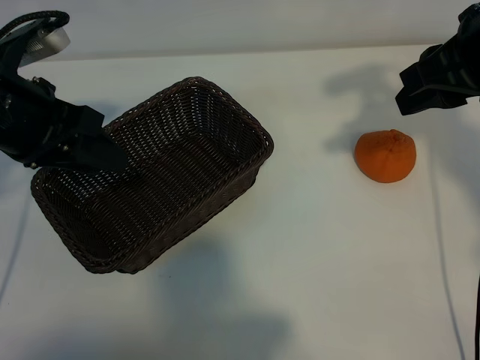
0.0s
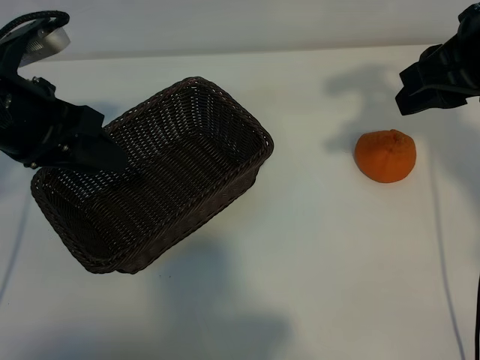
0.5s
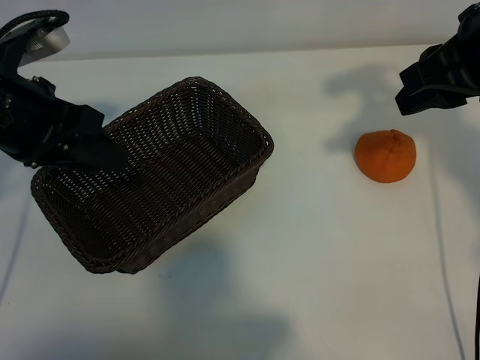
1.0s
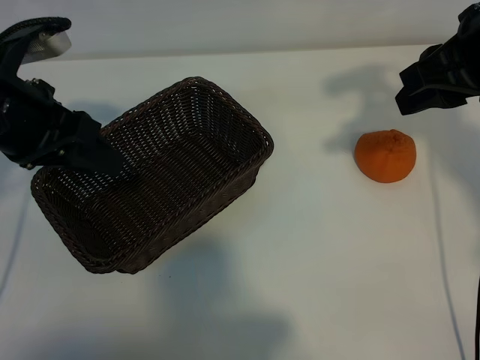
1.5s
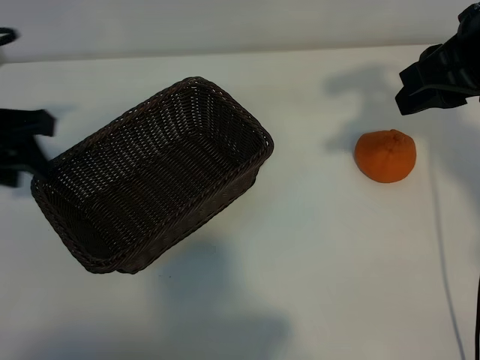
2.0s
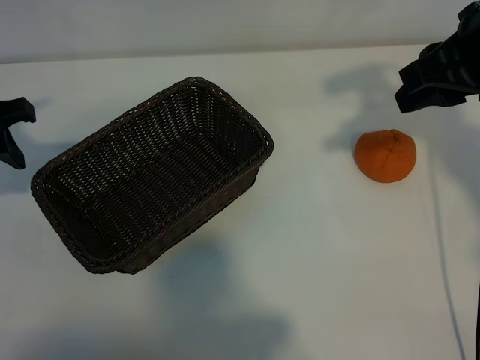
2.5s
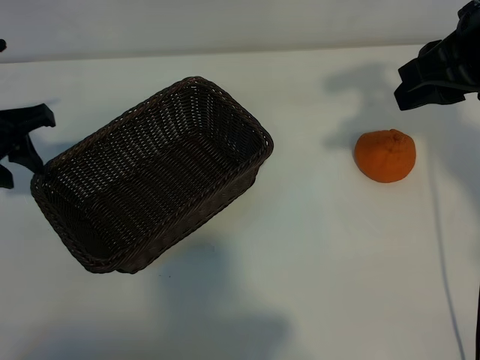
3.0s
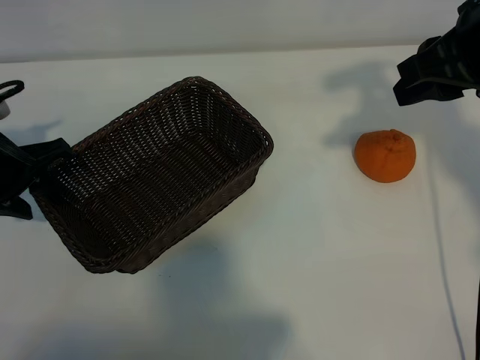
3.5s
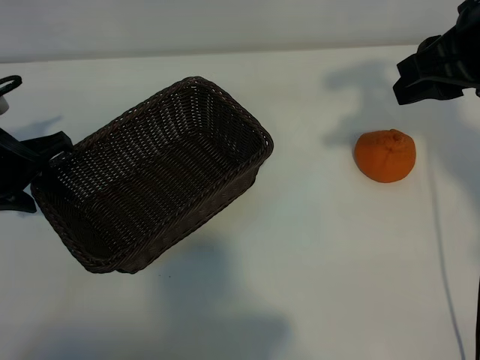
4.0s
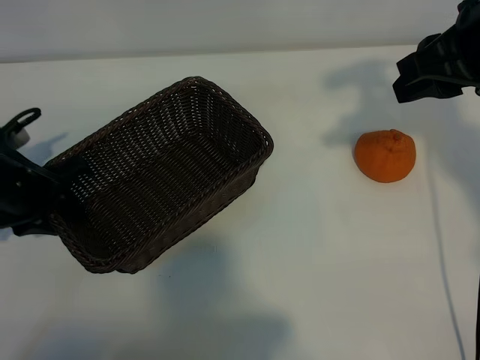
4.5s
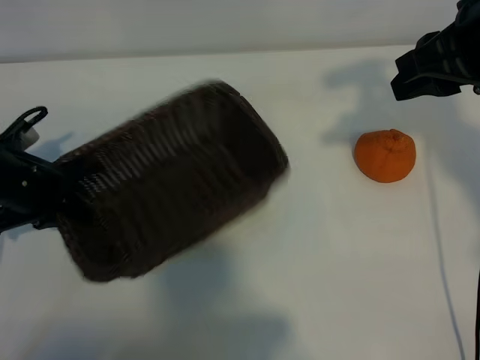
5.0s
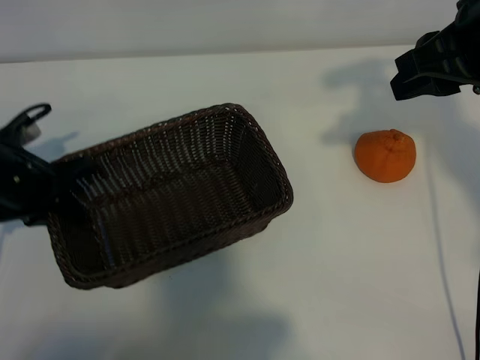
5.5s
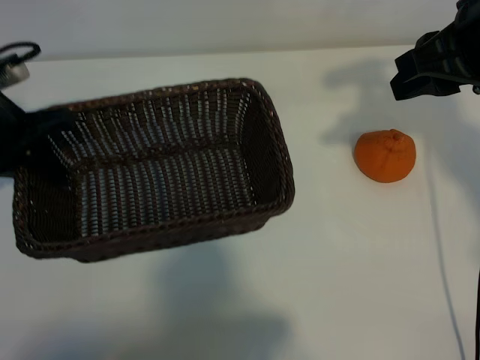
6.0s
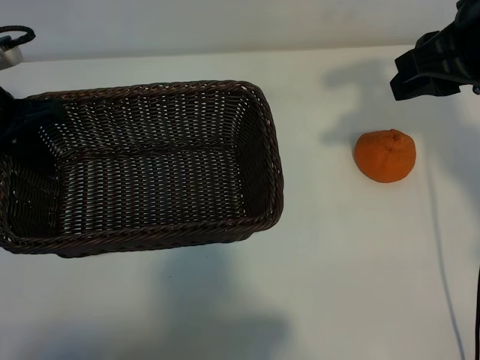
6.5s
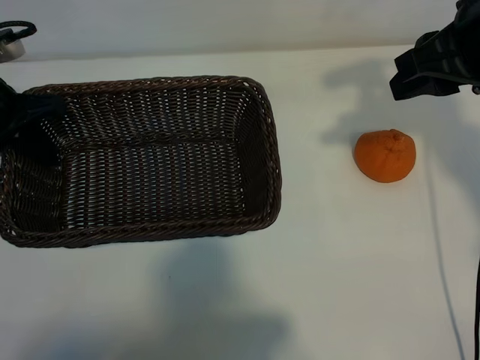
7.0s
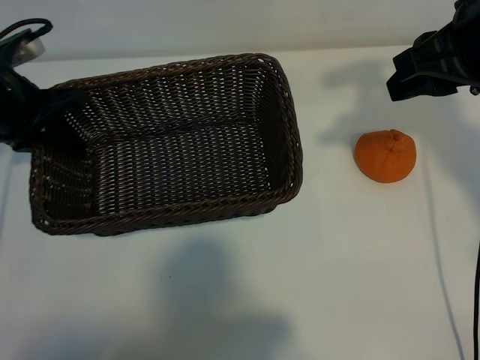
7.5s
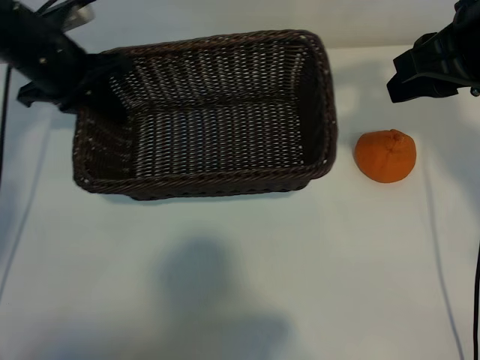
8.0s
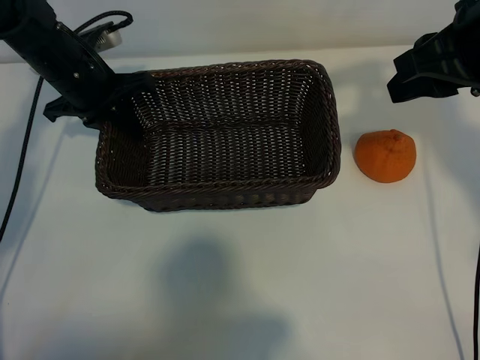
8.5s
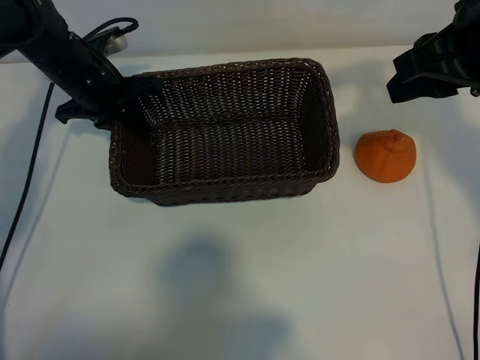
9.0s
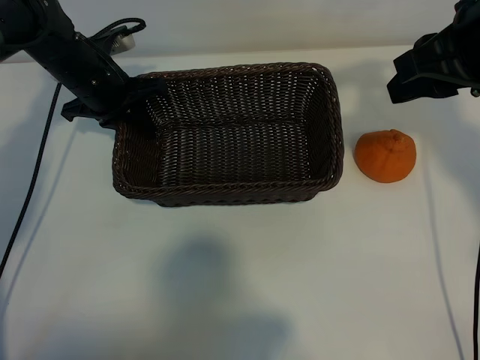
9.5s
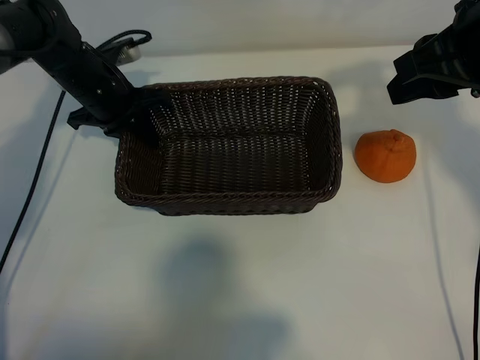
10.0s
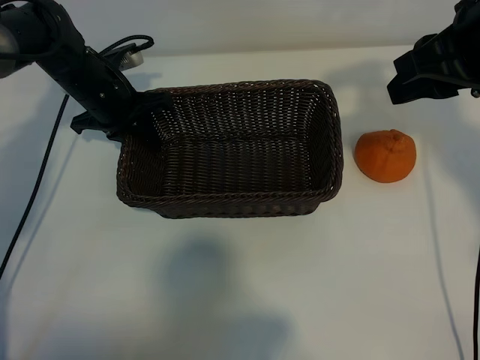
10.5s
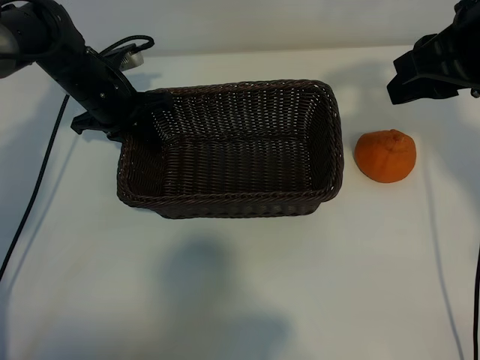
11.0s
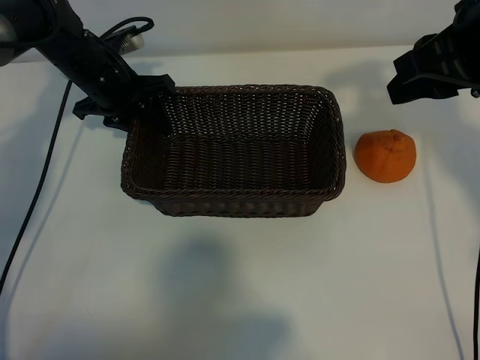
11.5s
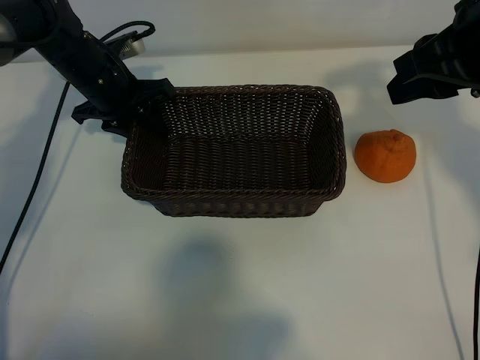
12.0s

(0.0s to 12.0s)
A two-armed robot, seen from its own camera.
Task of the whole recording: pick up the orange and put it into the basket.
Step, 1.0s - 5.0s: Grasp the basket with left gripper.
Step, 5.5s - 11.0s: Place the basket in the center of view with left gripper.

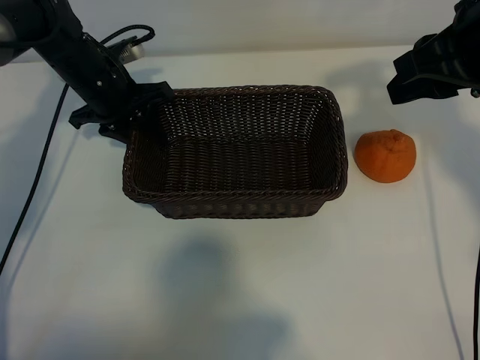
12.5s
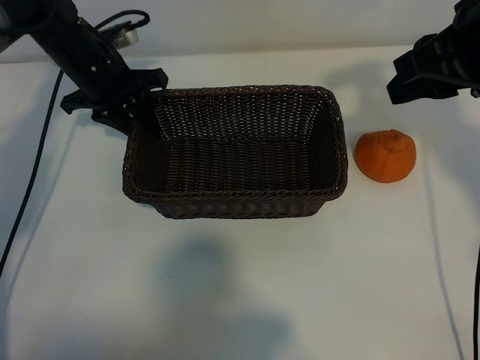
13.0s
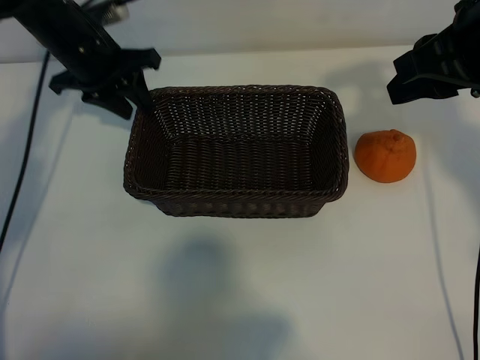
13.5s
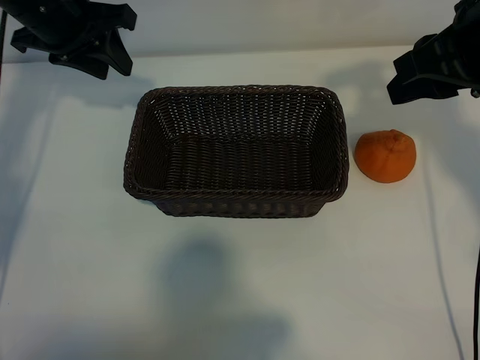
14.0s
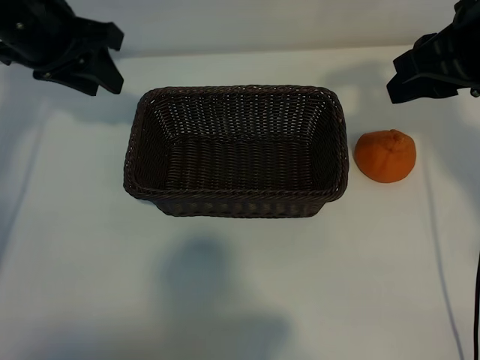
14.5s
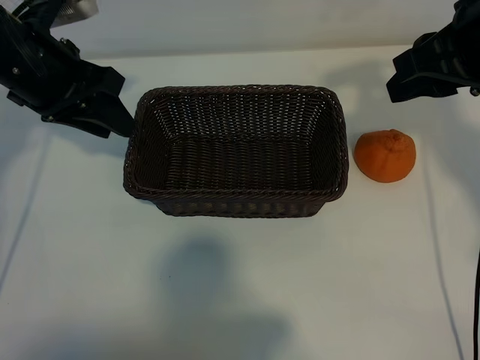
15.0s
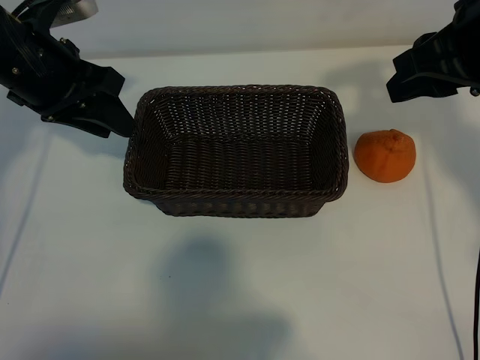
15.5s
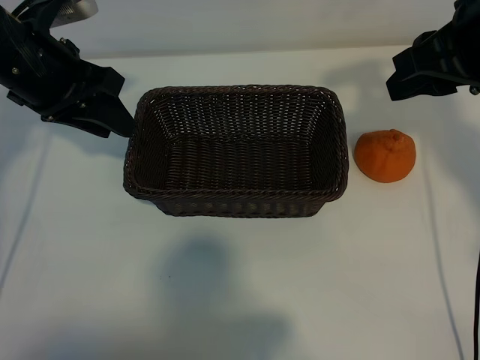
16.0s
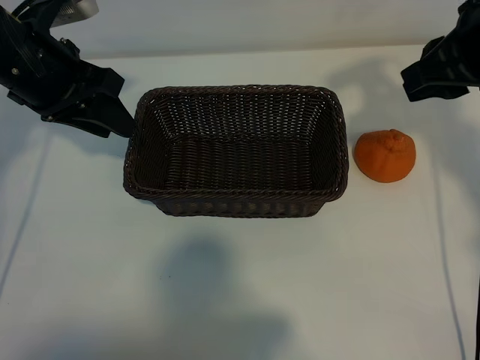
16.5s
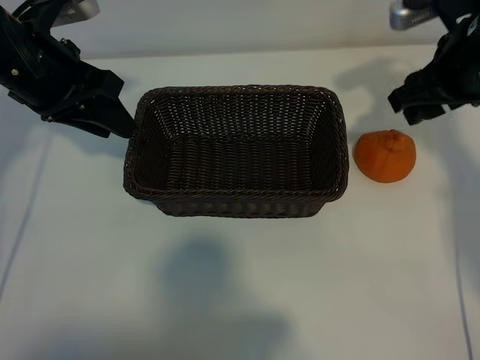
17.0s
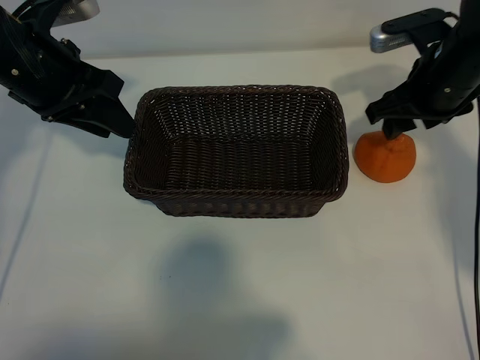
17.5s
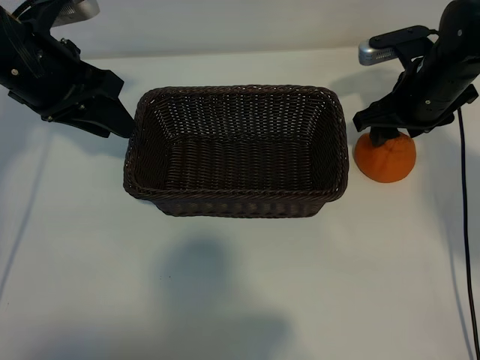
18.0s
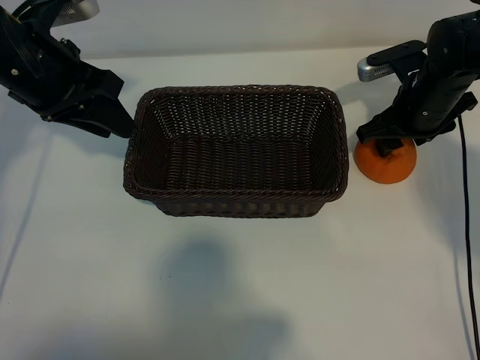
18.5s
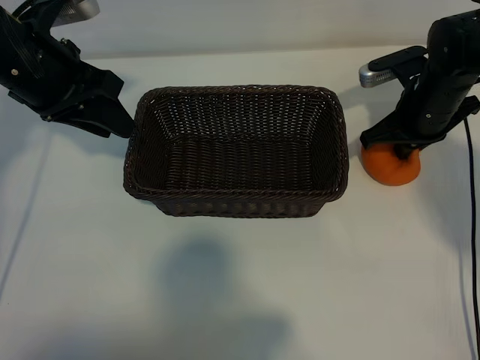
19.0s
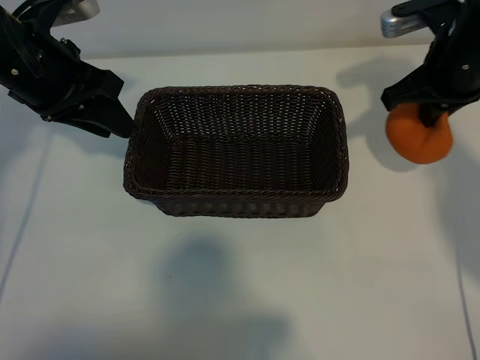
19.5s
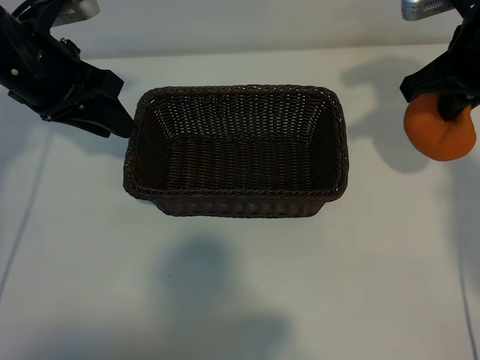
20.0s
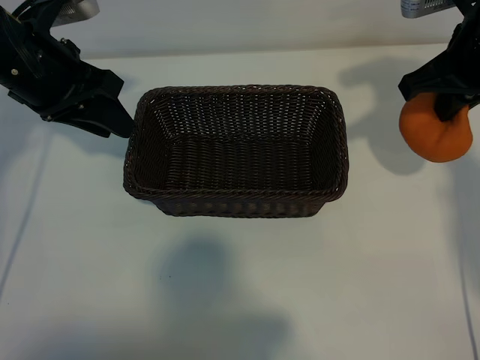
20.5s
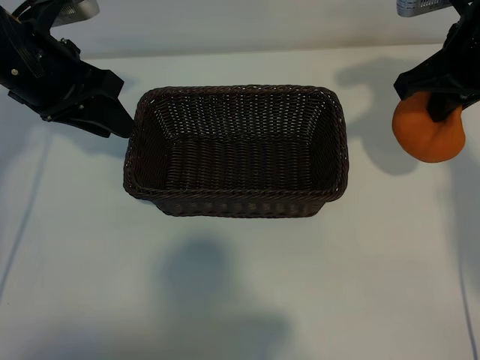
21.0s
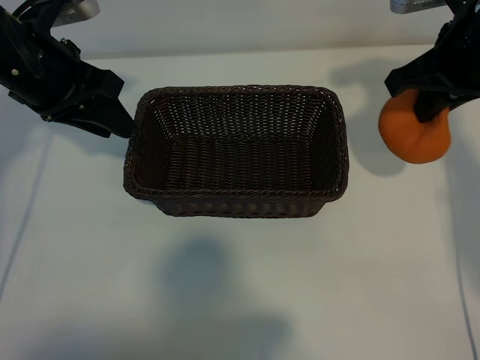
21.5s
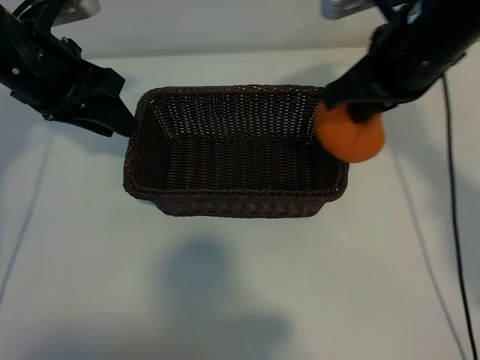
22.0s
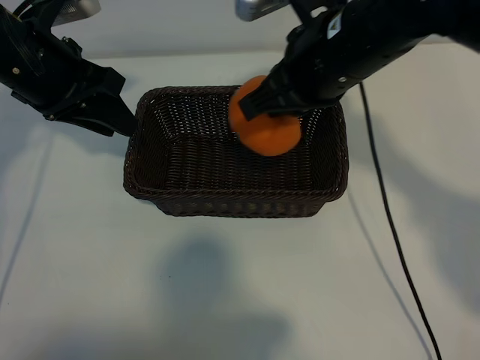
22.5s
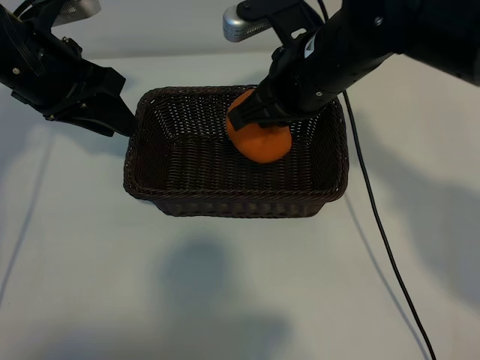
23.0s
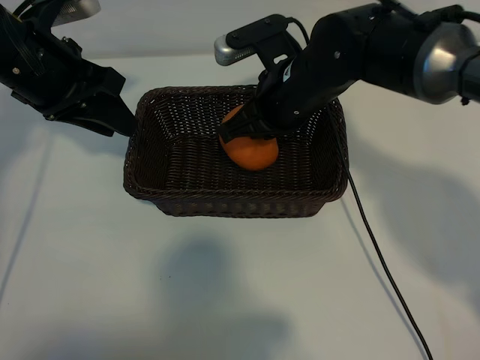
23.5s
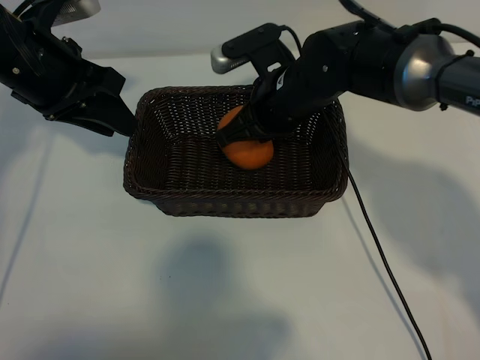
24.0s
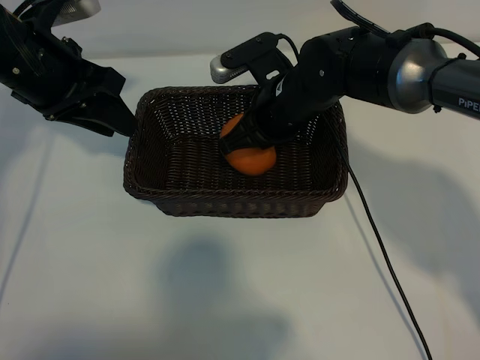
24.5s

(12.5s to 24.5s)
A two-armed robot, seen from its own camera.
Task of the whole recording: pick up the orange and put it into the basket.
Step, 12.5s - 18.5s: Grasp the orange with right gripper.

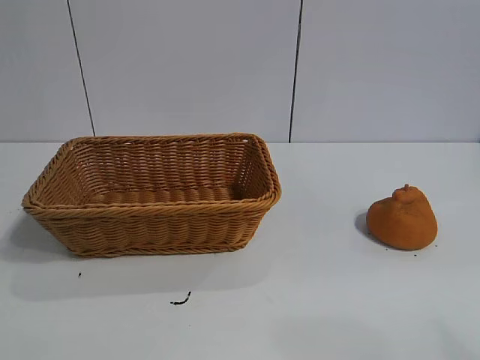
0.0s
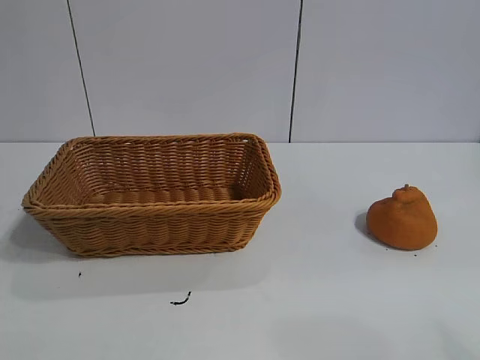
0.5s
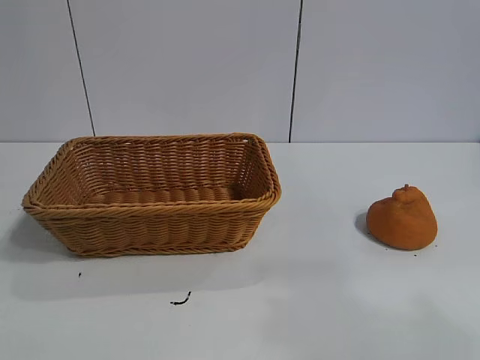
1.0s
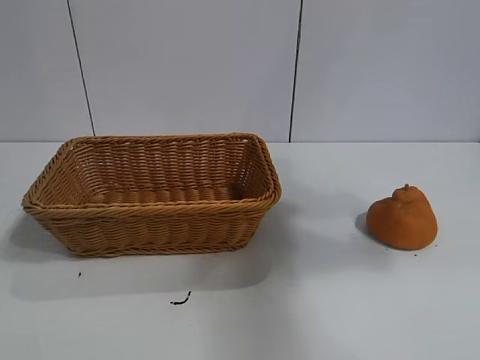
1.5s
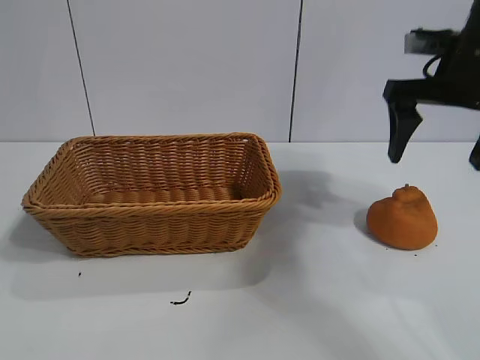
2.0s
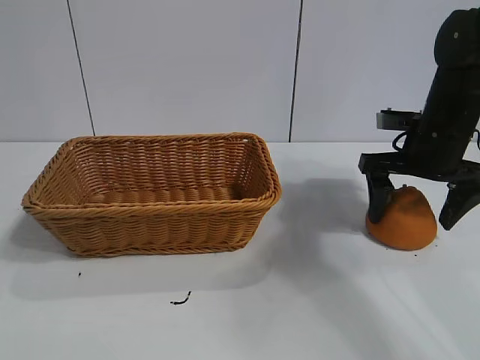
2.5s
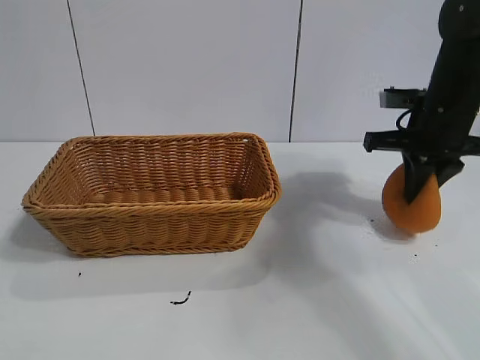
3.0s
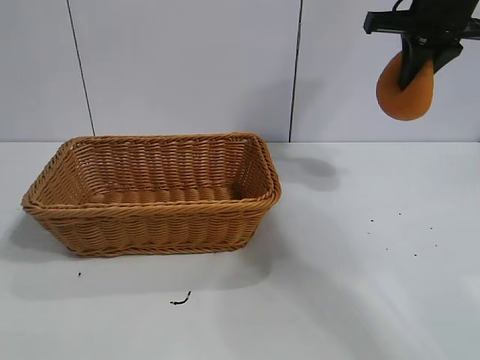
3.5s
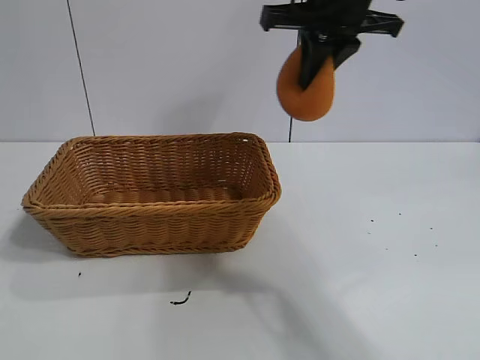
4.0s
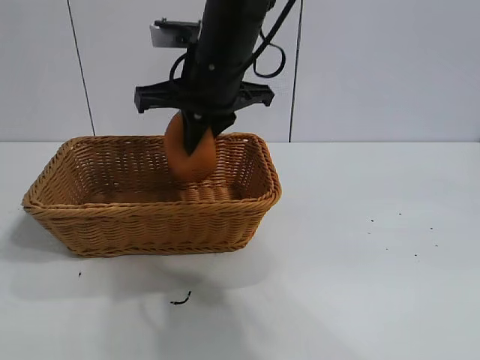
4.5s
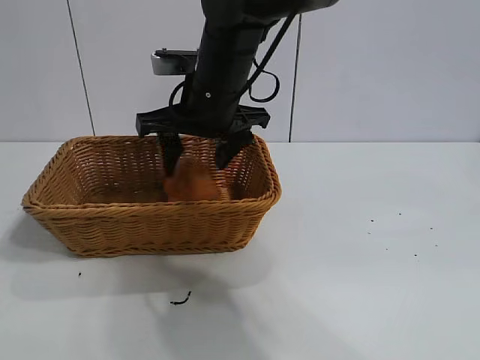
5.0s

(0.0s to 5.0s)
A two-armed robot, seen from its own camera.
Task of the whole recording: pick up the orange and put it into the basket.
Step, 1.0s - 2.5s: Grasp the orange with right gripper.
